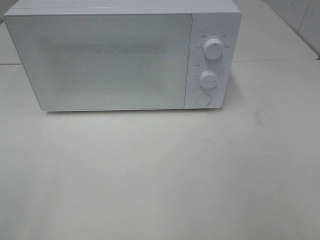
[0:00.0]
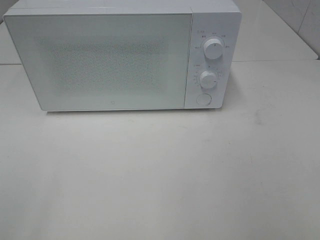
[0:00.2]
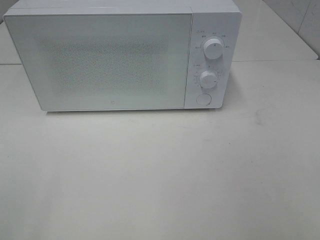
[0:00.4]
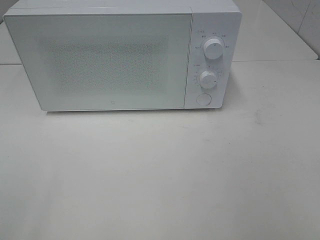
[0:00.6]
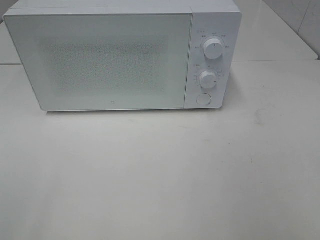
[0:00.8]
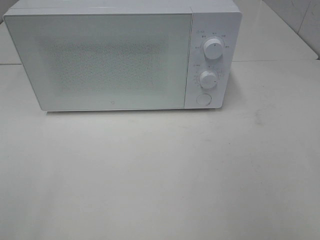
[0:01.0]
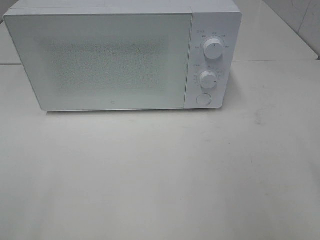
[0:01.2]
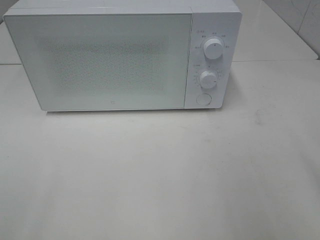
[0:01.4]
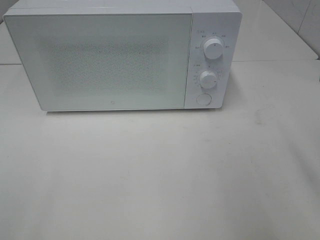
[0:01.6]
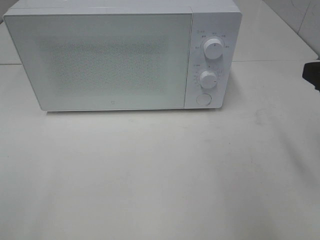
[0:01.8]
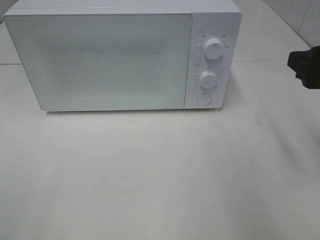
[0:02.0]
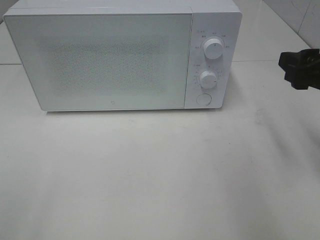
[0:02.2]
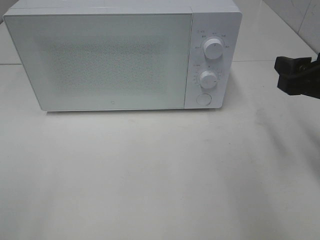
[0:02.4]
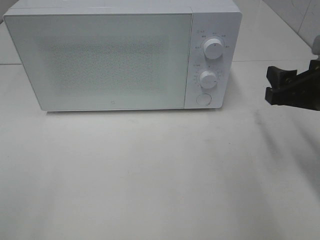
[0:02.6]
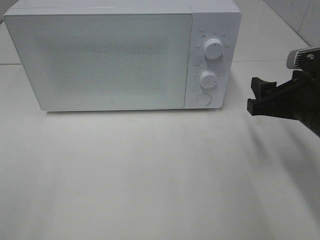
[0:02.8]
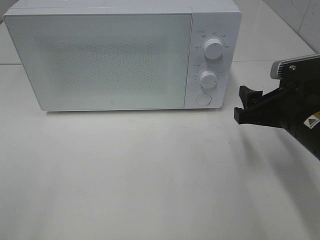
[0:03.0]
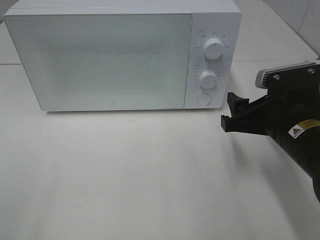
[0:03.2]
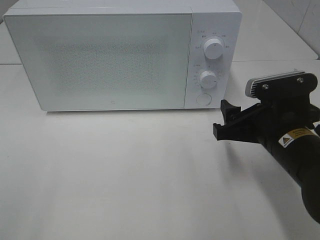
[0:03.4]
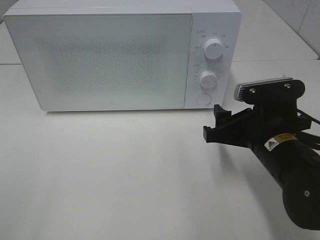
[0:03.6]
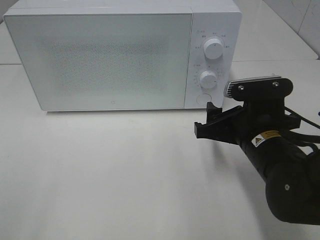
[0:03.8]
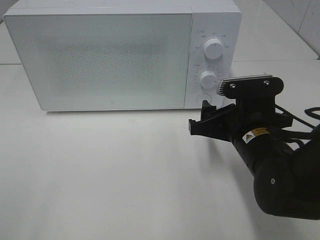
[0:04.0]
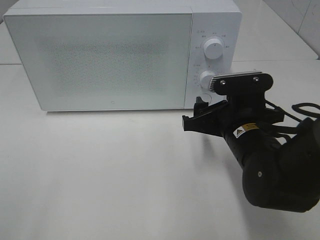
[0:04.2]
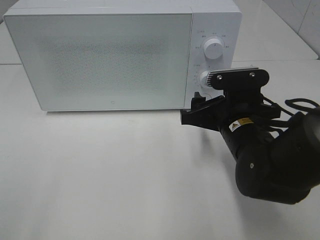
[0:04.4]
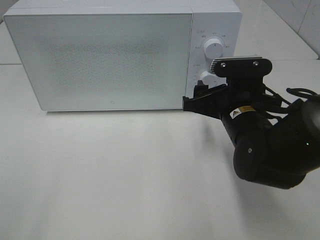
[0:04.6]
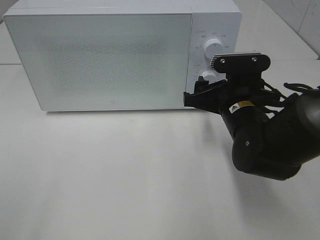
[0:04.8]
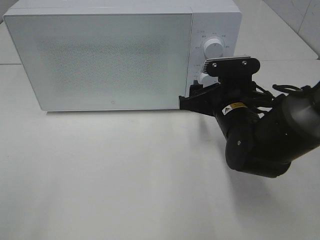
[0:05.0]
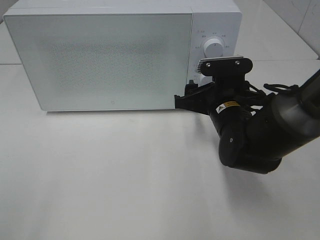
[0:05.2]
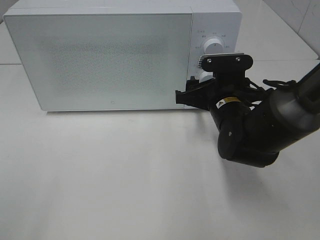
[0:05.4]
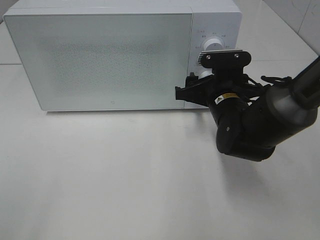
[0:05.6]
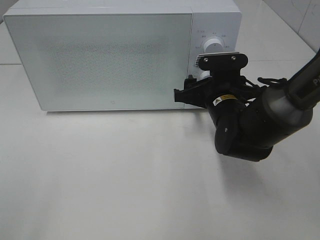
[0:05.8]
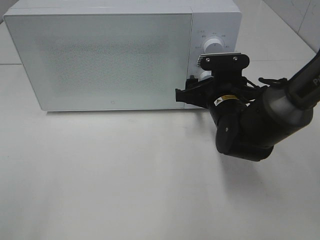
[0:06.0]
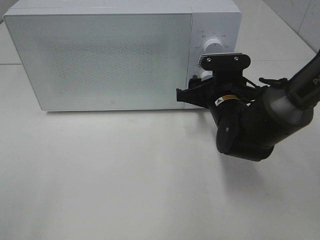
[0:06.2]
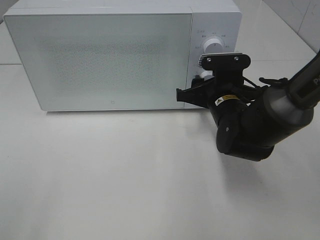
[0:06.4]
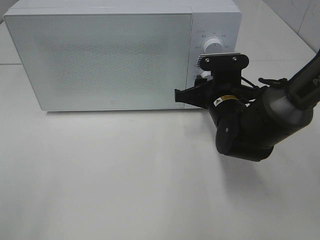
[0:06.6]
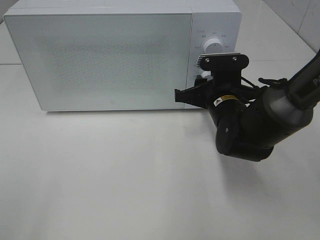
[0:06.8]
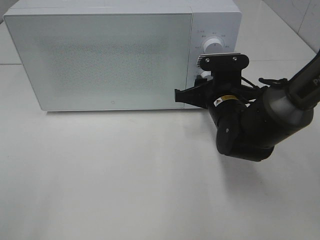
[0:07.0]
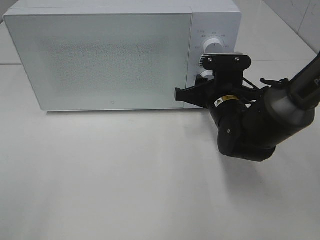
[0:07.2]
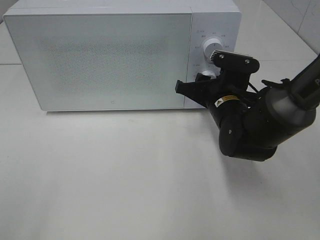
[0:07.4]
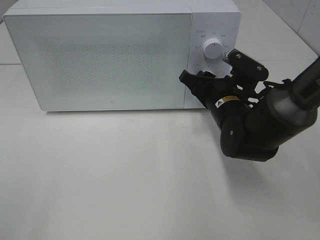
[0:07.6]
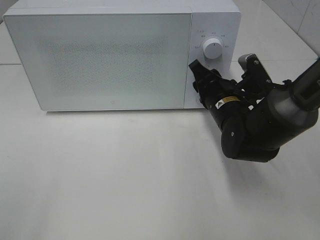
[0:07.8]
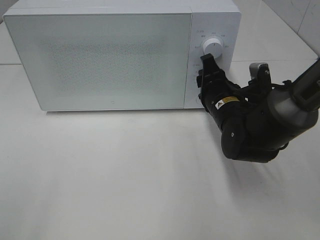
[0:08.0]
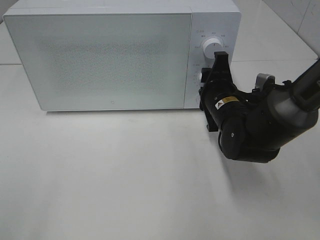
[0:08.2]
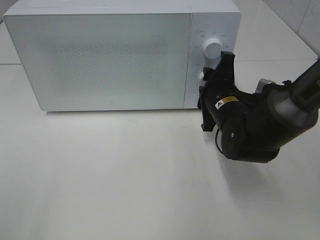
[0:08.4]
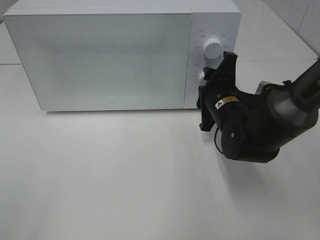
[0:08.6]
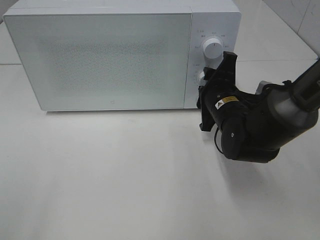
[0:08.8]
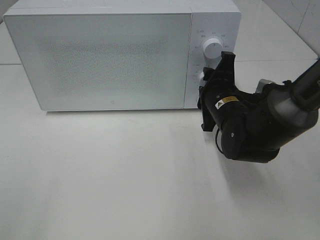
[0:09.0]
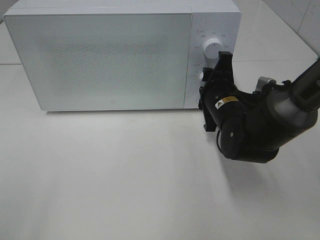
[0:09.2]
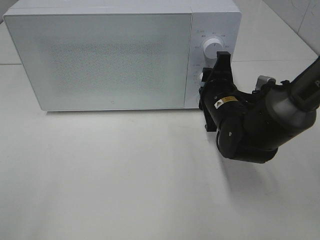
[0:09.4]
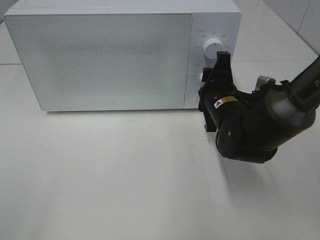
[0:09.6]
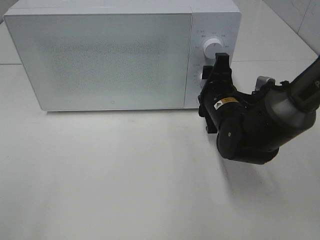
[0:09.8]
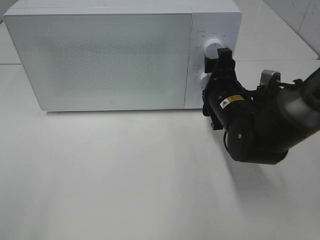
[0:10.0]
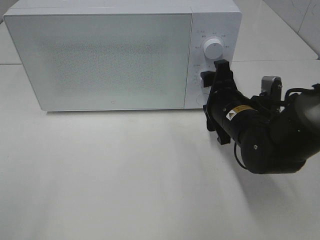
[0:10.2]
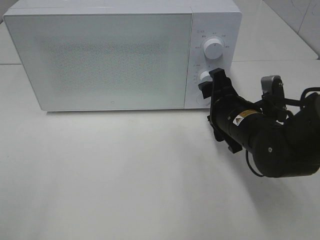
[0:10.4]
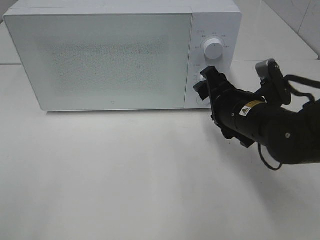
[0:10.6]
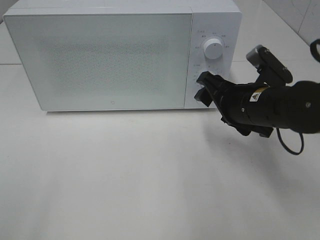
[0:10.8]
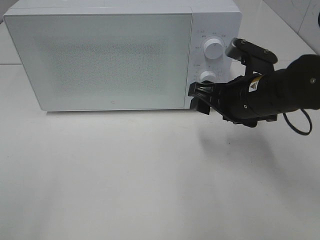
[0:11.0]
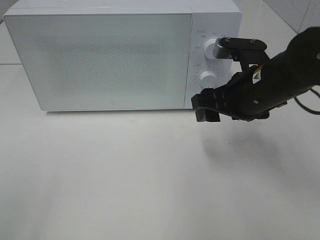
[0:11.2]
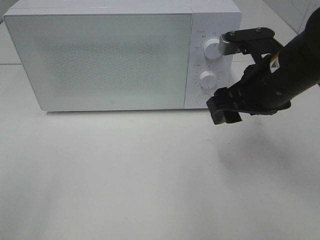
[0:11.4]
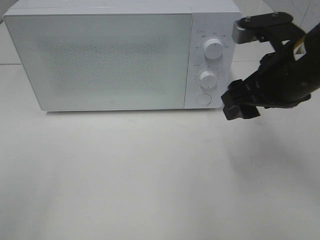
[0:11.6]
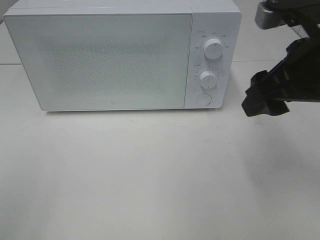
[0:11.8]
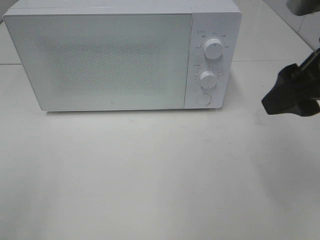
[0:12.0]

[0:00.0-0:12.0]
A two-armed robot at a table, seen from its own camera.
Task of the whole recording: Heat the burger.
Step, 0:00.0 to 0:09.6: Right hand: twist timer button.
0:01.6 to 0:03.0: The right gripper is displaced downward, forward and to the left by roughly 15 cm.
0:03.0 to 0:04.4: The right gripper is displaced to the left by about 10 cm.
0:04.4 to 0:06.0: The right gripper moves forward, some 10 cm.
0:06.0 to 0:07.6: The right gripper closes its fingers.
0:10.4 to 0:12.0: The right gripper goes about 20 cm upward and backward.

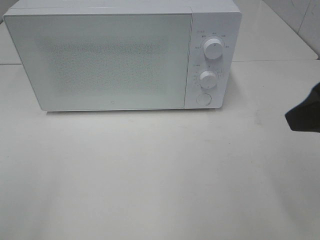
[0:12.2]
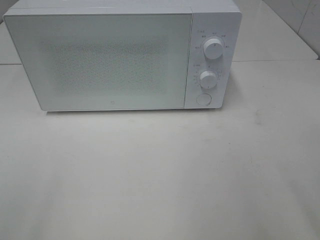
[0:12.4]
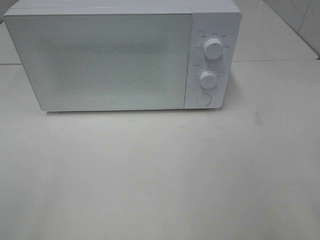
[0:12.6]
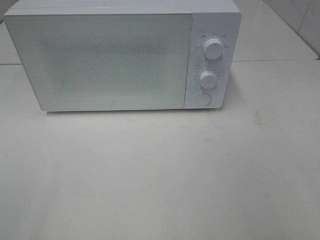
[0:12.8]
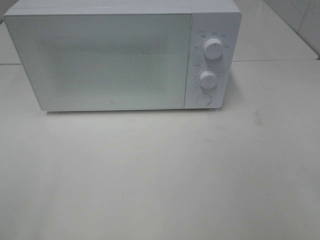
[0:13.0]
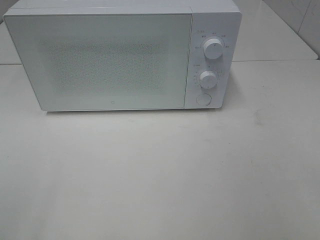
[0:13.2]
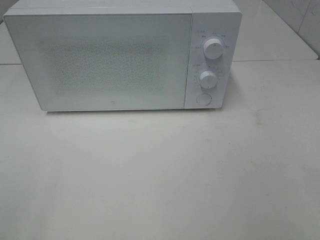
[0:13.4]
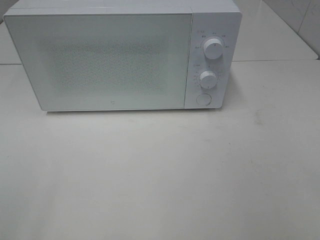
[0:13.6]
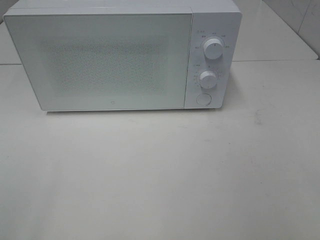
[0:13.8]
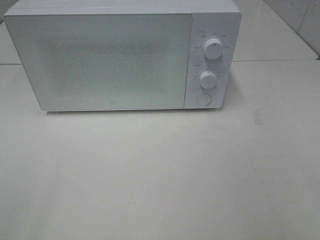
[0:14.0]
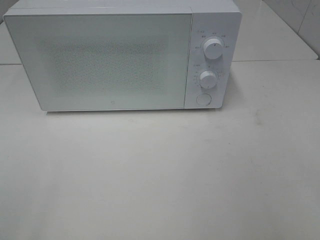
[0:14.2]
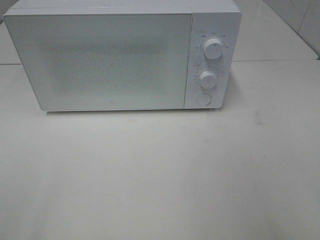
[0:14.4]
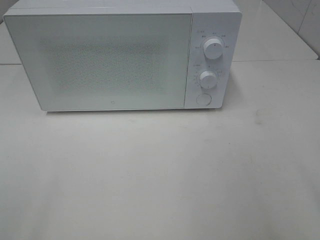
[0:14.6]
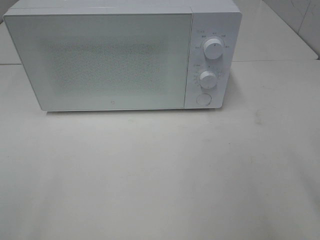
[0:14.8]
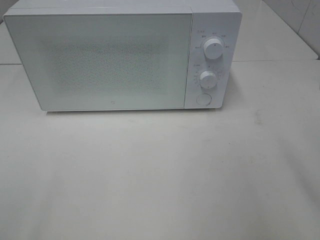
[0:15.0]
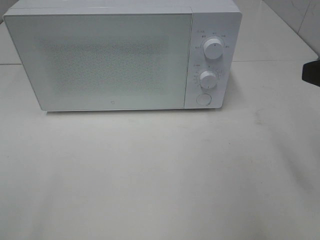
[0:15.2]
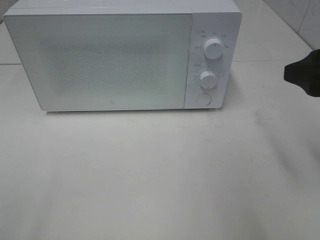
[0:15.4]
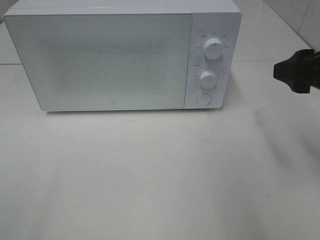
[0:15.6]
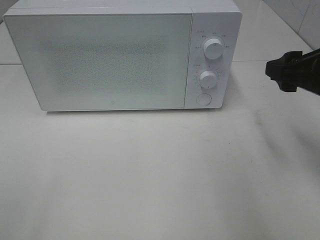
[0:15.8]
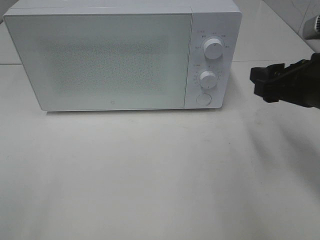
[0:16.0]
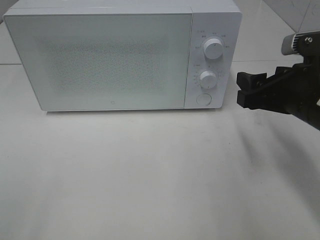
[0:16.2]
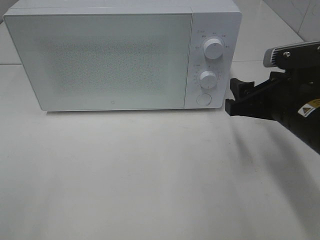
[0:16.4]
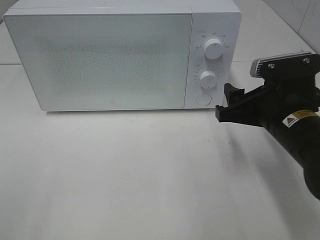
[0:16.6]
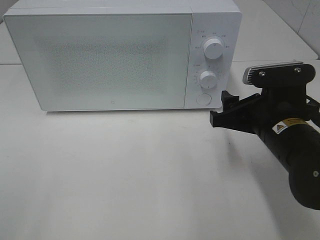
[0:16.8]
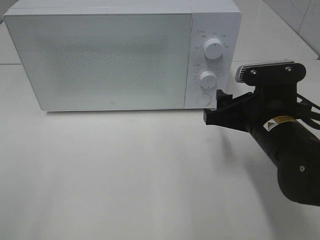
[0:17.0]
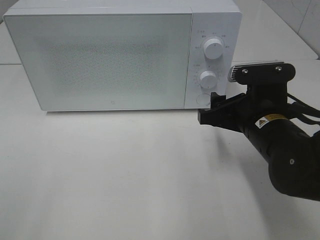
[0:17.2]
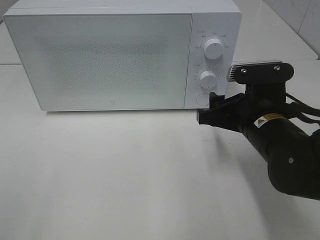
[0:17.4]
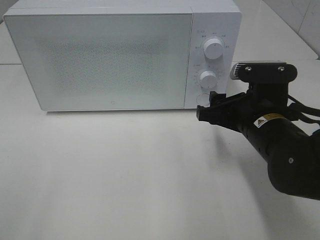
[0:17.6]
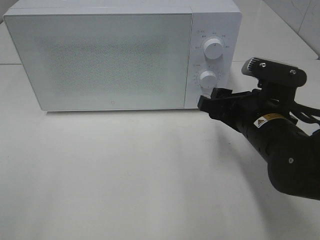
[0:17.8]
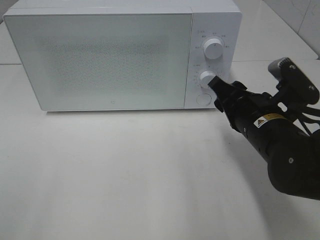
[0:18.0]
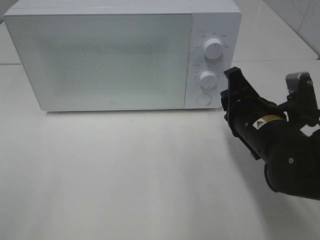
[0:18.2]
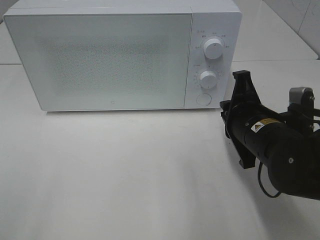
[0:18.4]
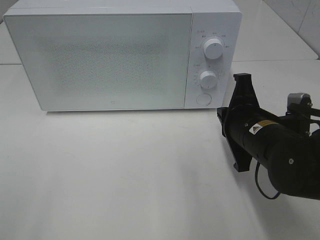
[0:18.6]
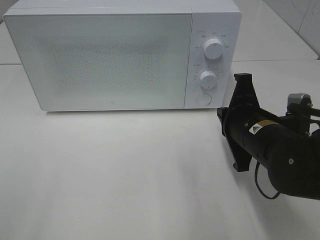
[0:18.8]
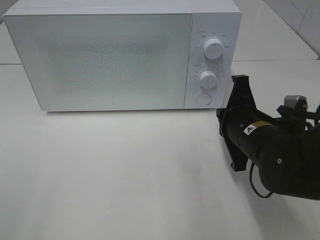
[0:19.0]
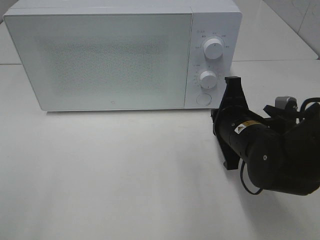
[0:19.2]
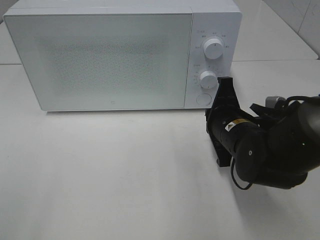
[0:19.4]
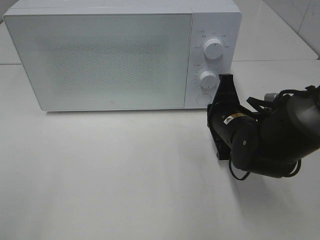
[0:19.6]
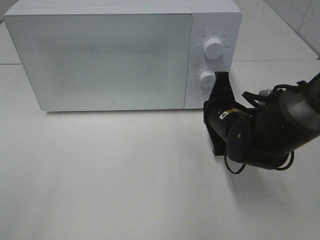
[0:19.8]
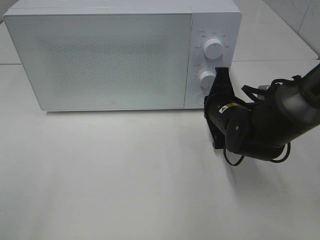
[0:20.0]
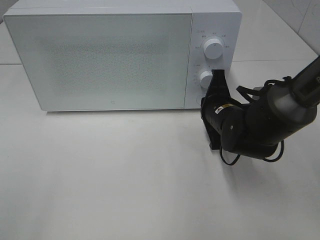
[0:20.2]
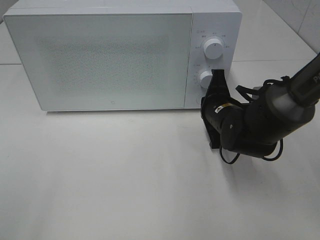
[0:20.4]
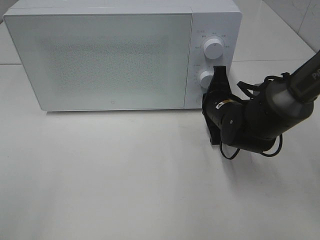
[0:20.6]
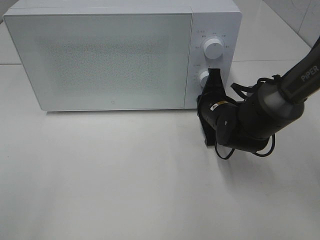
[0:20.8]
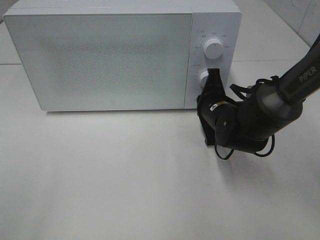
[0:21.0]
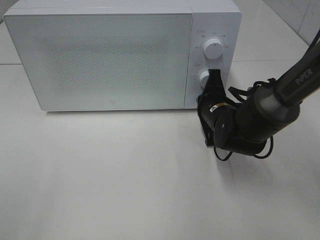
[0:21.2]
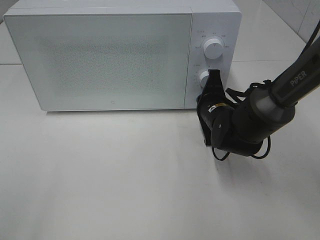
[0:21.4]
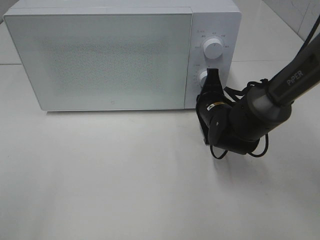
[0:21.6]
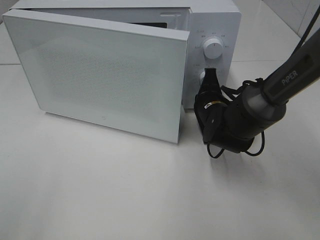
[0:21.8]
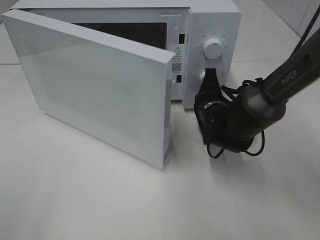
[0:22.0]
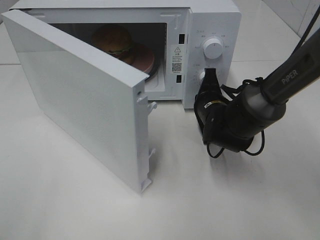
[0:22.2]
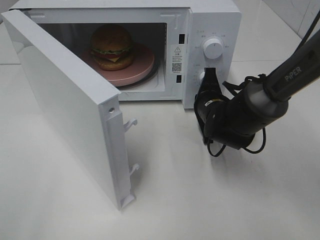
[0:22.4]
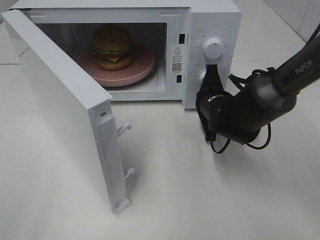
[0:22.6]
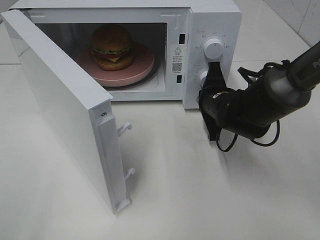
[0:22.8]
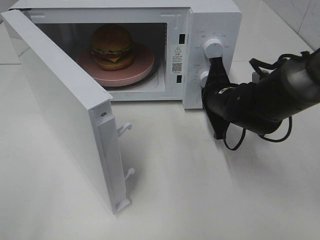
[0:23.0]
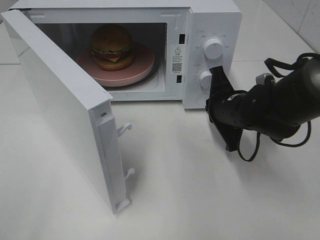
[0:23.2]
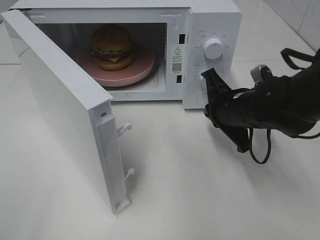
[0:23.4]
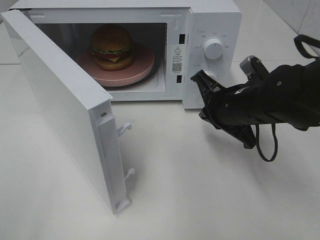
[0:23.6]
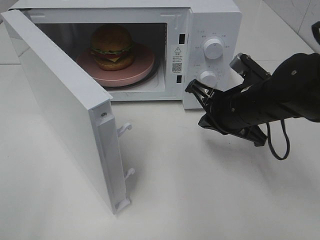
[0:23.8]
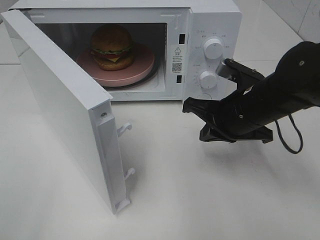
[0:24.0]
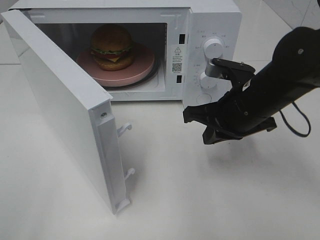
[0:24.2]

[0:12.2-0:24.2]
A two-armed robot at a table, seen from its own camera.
Task of the whole recording: Heat the burger.
Step, 0:12.2 to 0:23.0: Right hand: press the switch.
0:12.2 to 0:13.8: The right gripper heads backward and to the right, covering about 15 cm.
0:15.2 to 0:16.6: The right gripper travels downward, to the left and forward by roughly 15 cm.
0:16.6 to 0:18.2: The right gripper closes.
0:18.2 to 0:19.8: The right gripper shifts approximately 5 cm forward, and closes up.
0:19.8 to 0:21.2: The right gripper moves some 5 cm.
0:22.6 to 0:24.2: The right gripper heads backward and upward, covering approximately 10 cm.
